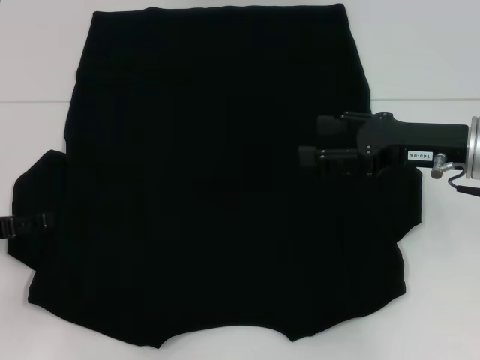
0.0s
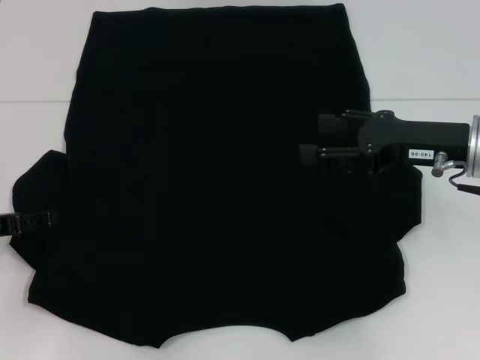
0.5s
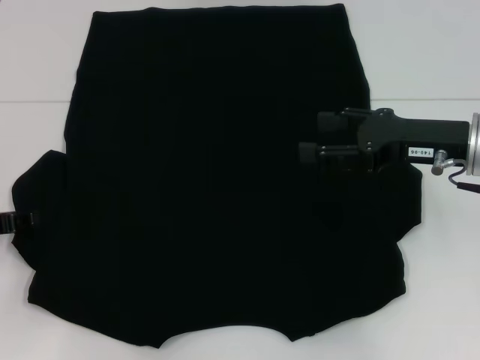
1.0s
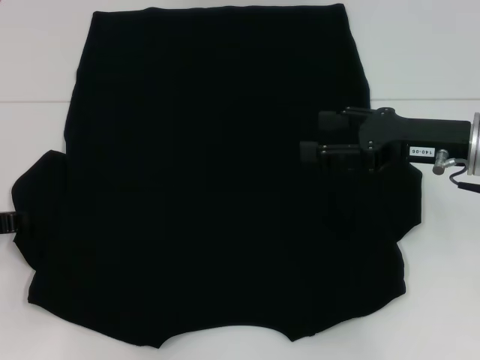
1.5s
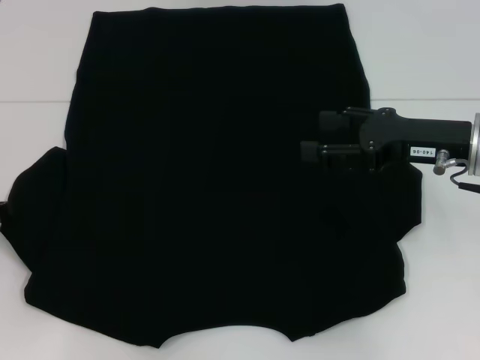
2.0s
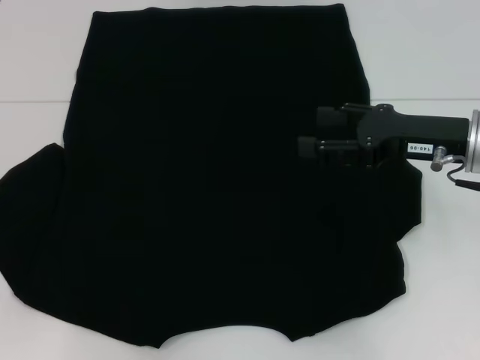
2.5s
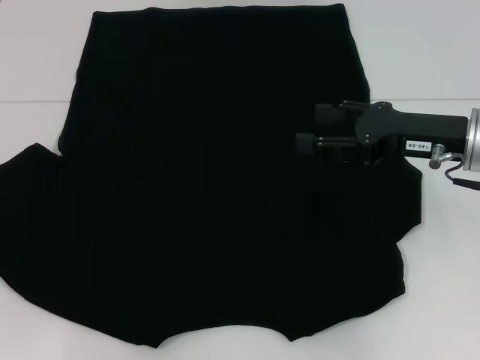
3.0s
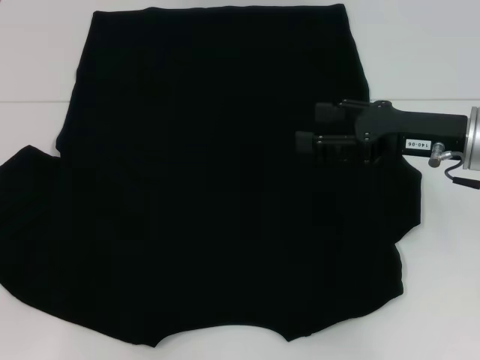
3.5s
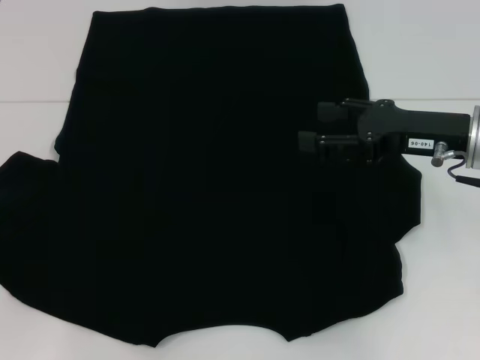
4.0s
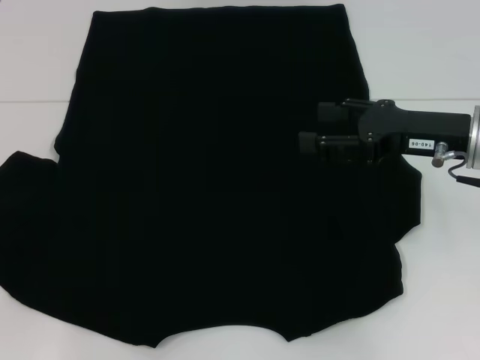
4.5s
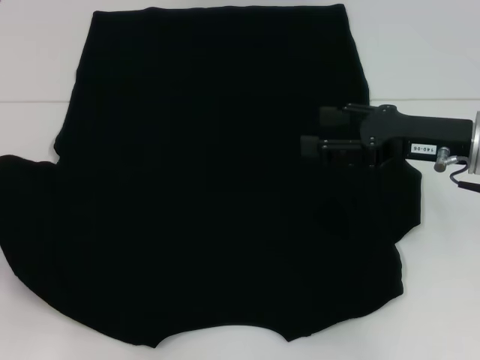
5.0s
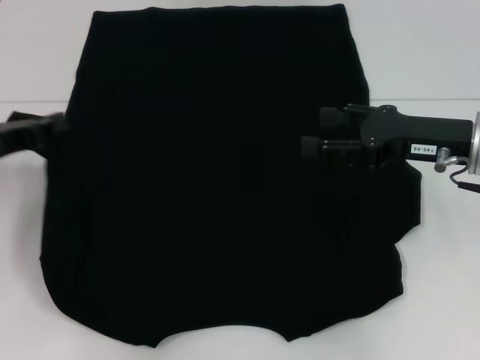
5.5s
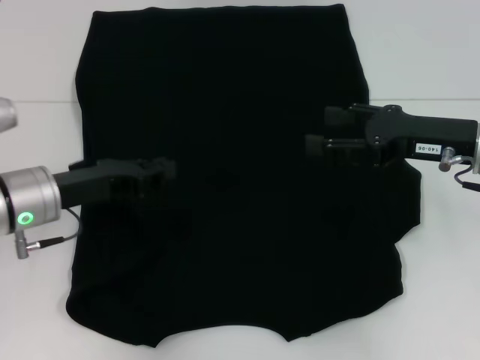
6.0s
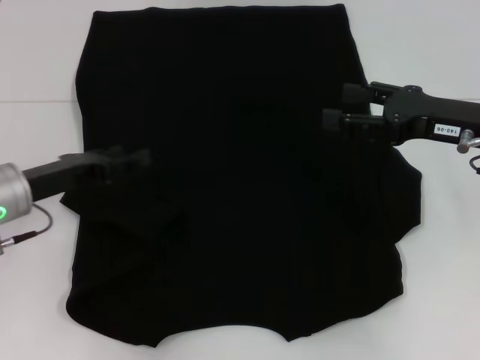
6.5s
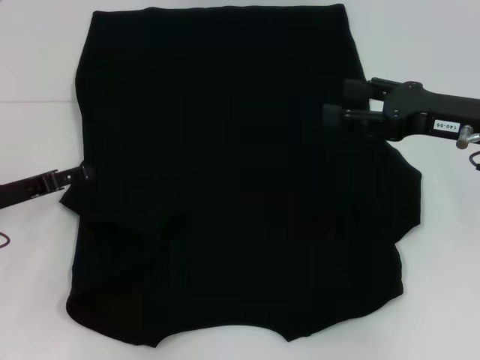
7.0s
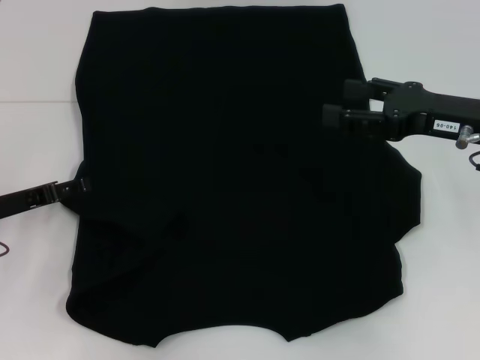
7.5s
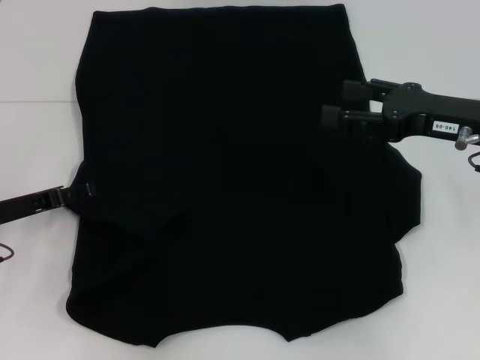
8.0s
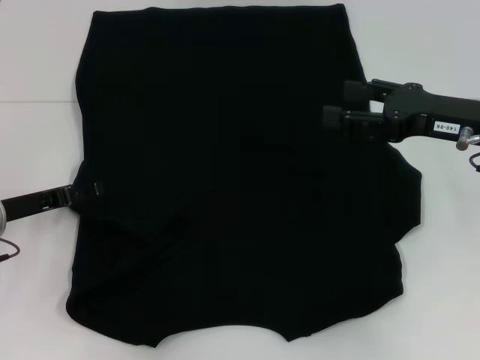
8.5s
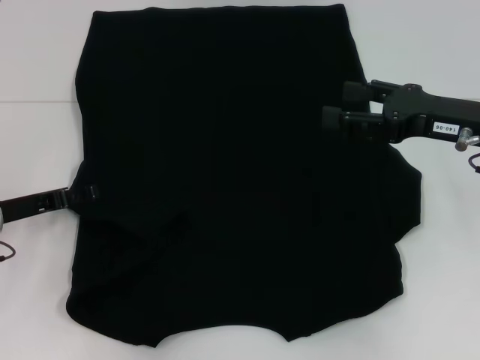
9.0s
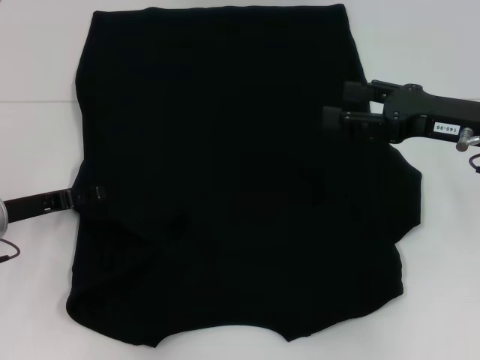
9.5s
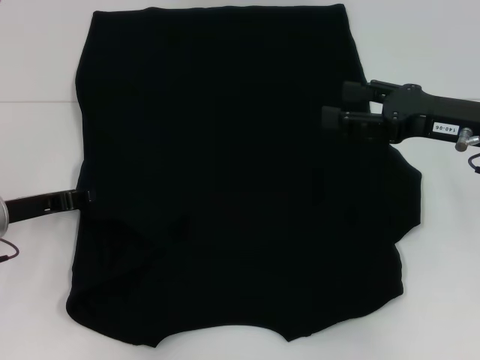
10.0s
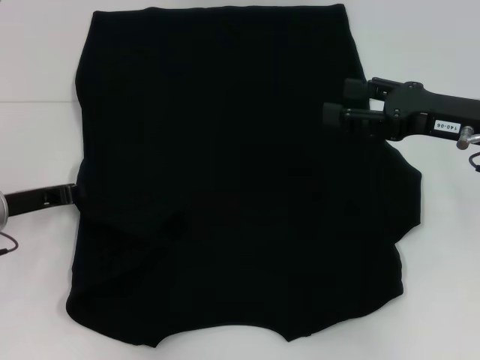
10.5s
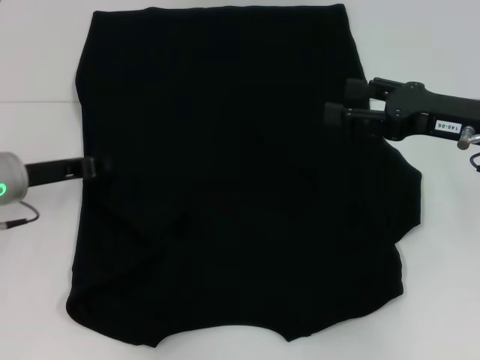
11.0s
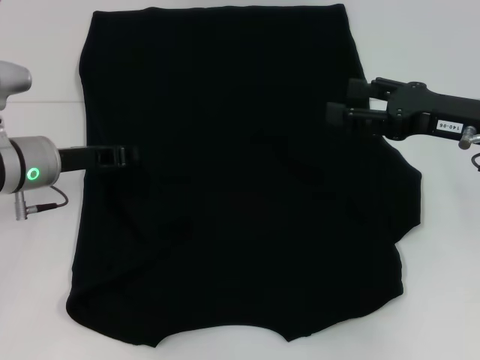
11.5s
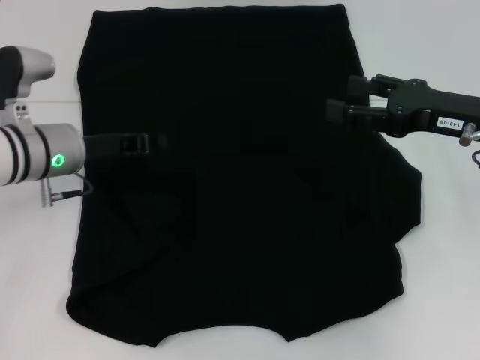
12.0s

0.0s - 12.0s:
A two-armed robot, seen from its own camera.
0.0s - 2.0s: The left gripper closes up.
2.0s - 4.0s: The grippers move only a little.
4.0s - 6.0s: The left gripper goes some 15 cm to the right.
6.0s - 8.0s: The left gripper shifts approximately 5 cm to the left, and opens up.
8.0s - 10.0s: The grippers move only a little.
10.0s - 12.0s: The left gripper moves to the right and forward, approximately 10 cm, and closes its fingers.

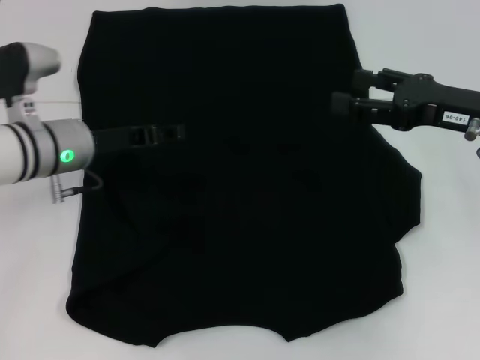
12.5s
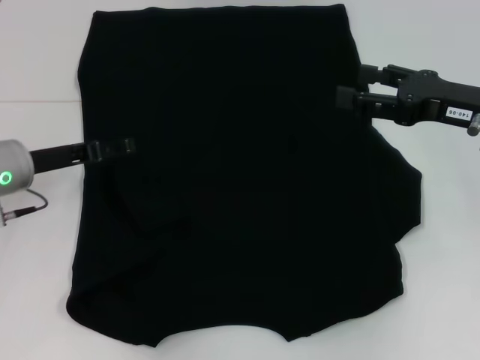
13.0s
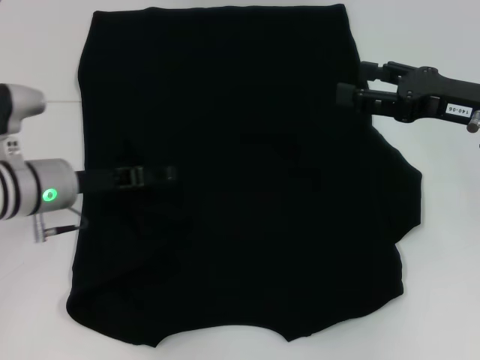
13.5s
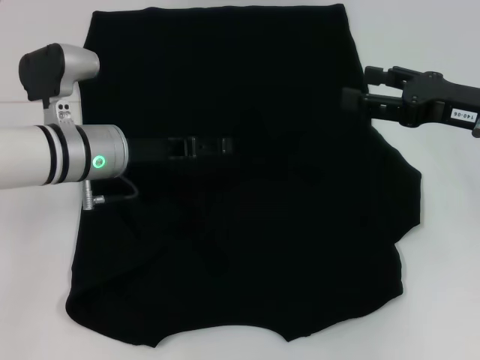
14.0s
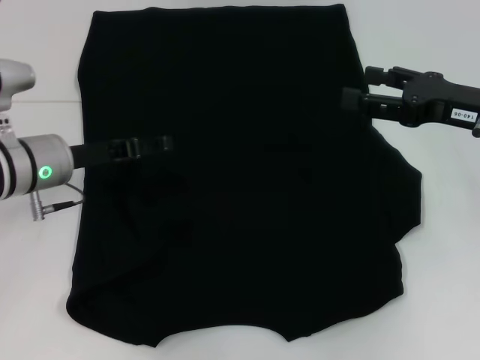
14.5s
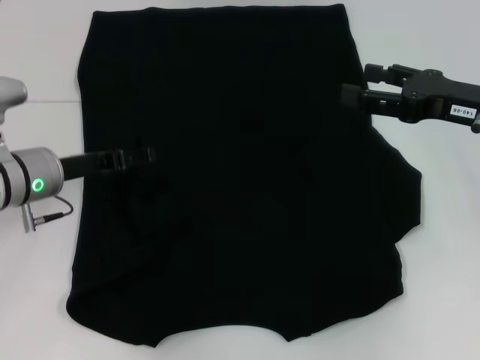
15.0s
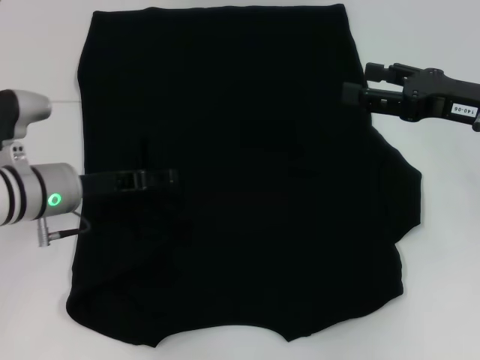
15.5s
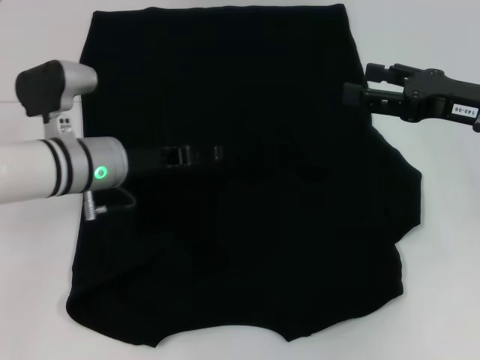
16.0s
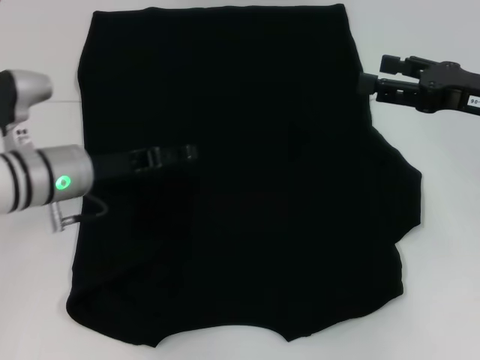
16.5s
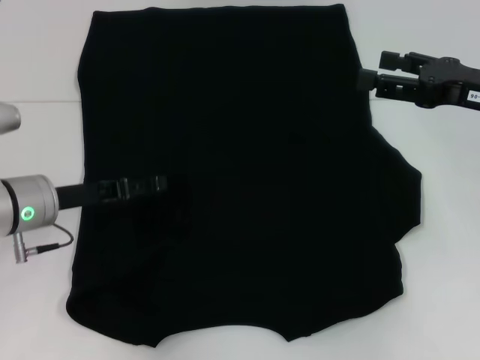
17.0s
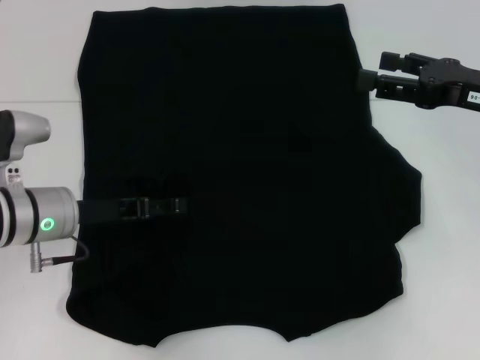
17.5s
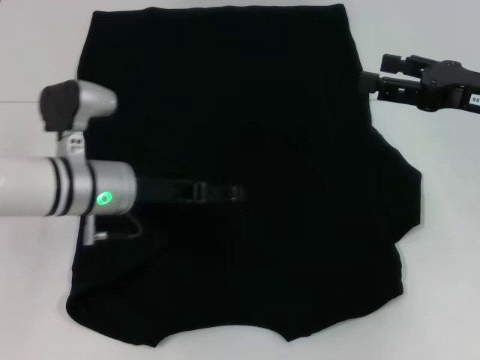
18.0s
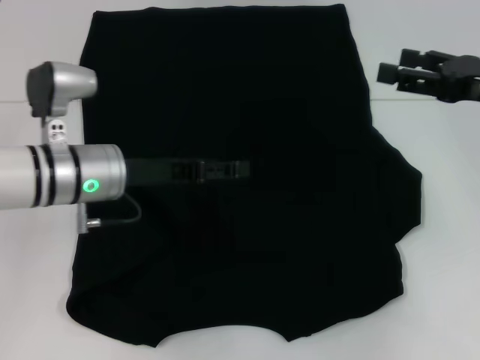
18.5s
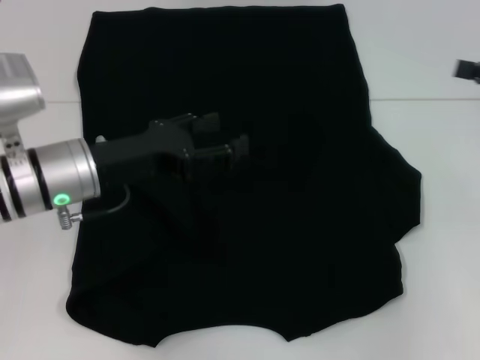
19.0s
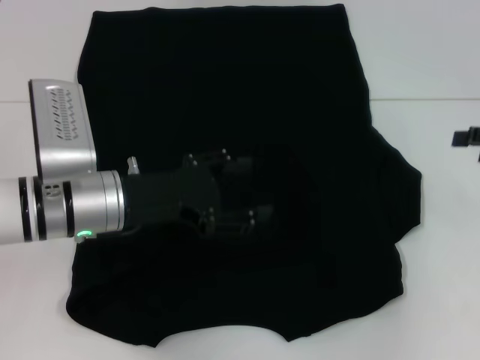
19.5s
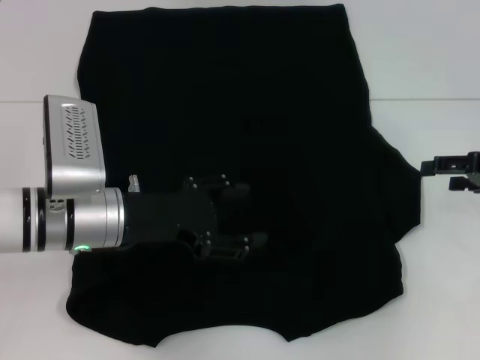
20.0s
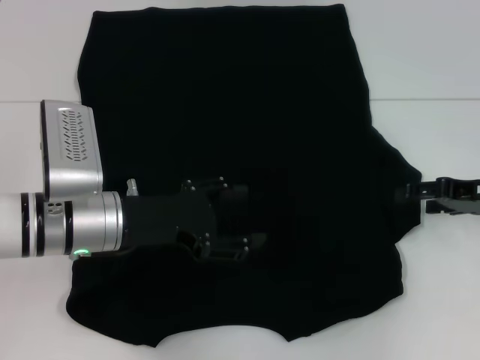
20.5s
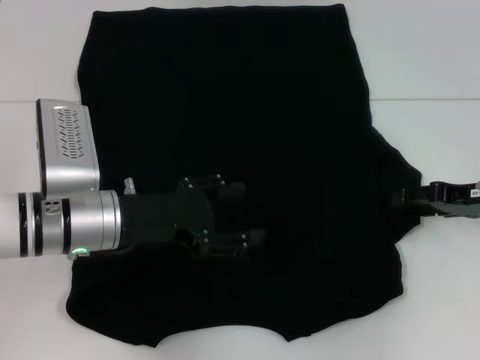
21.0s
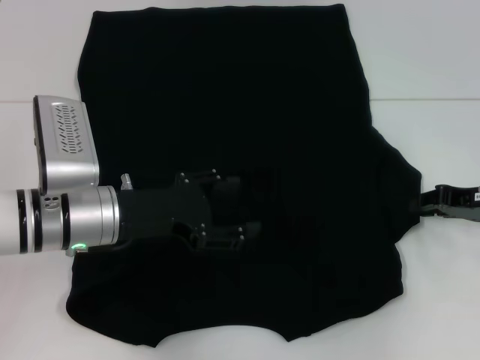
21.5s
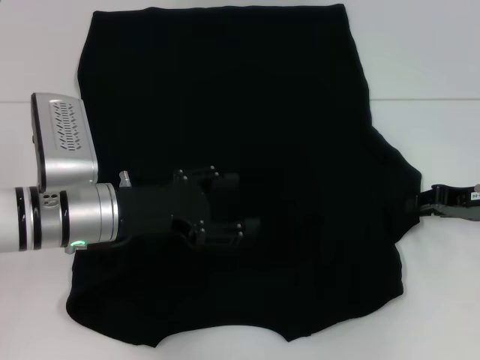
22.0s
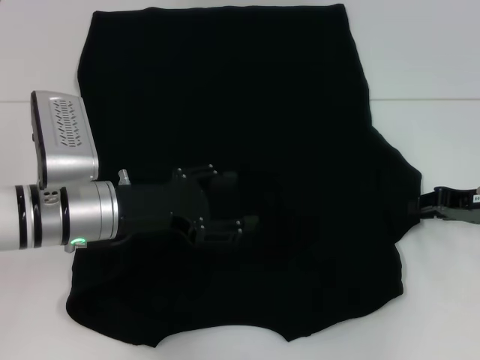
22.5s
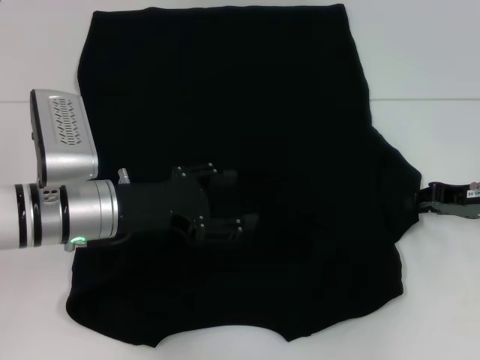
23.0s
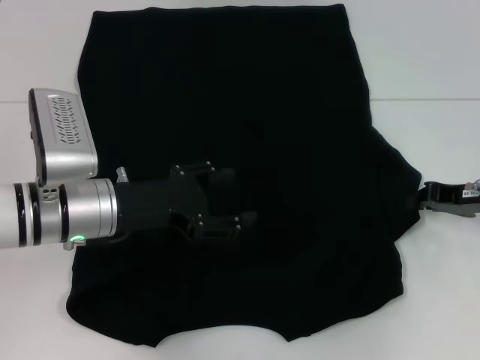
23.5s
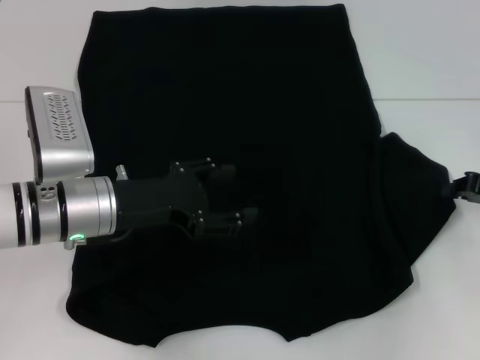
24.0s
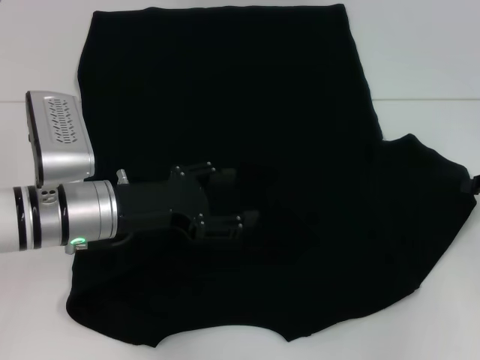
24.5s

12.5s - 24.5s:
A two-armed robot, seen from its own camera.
Step, 12.5s - 17.5s: Fold the bottom left sleeve with your left hand.
12.5s - 14.5s: The left gripper swings left and right, approximately 10 cm each way, with 2 reversals, and opens up.
14.5s - 16.5s: The grippers make only small movements.
16.5s - 18.5s: The grippers stay close to where they were, moving slightly.
18.5s - 20.5s: The right gripper goes roughly 10 cm downward.
20.5s - 22.5s: The right gripper closes.
22.5s - 24.5s: The right gripper ends up about 5 cm from where it was.

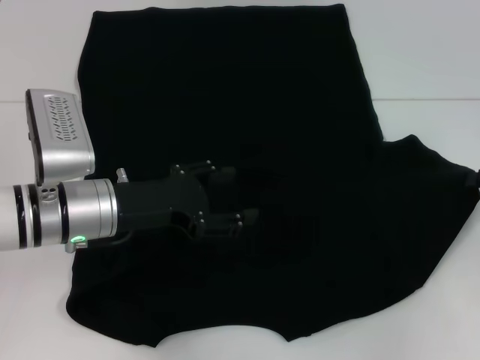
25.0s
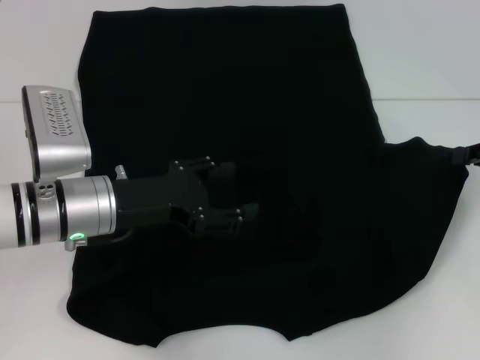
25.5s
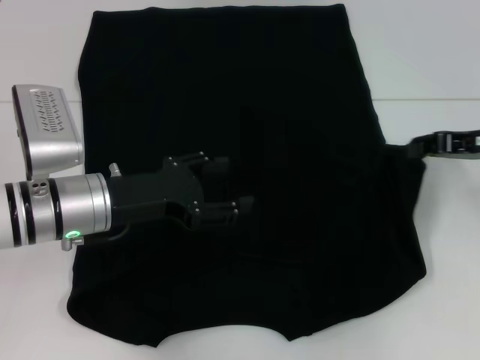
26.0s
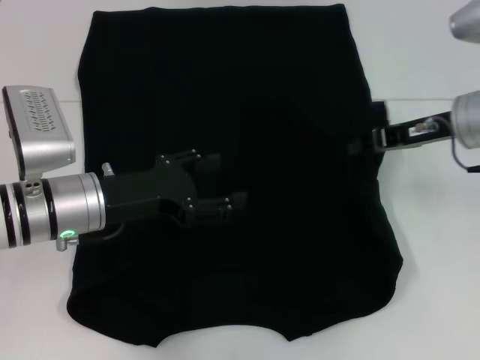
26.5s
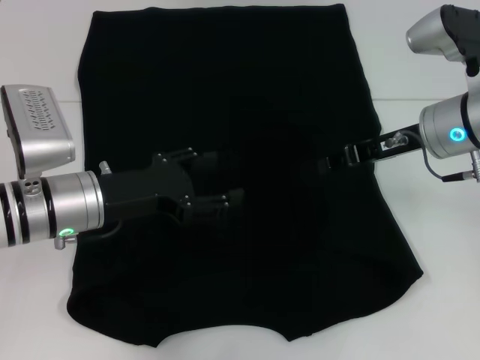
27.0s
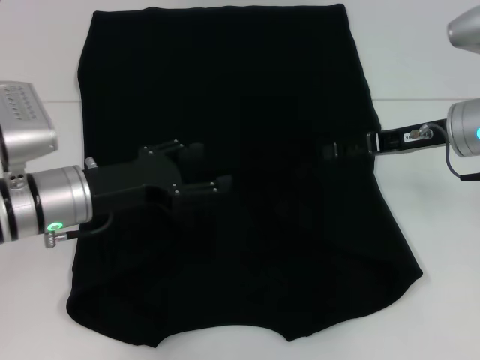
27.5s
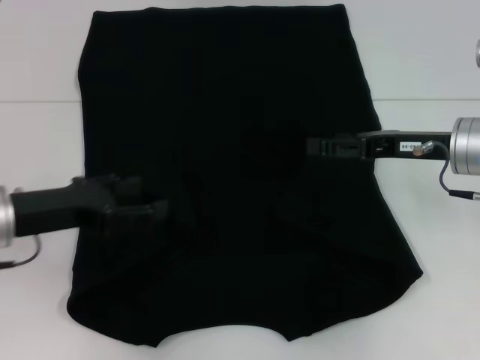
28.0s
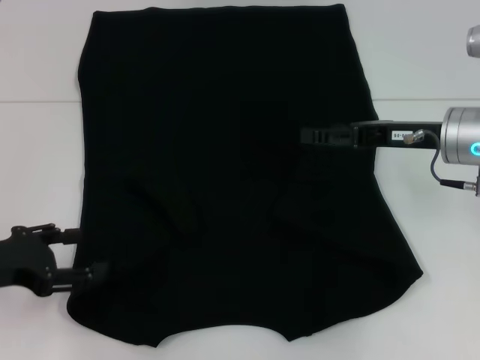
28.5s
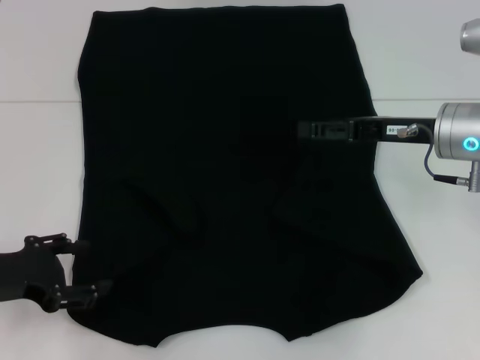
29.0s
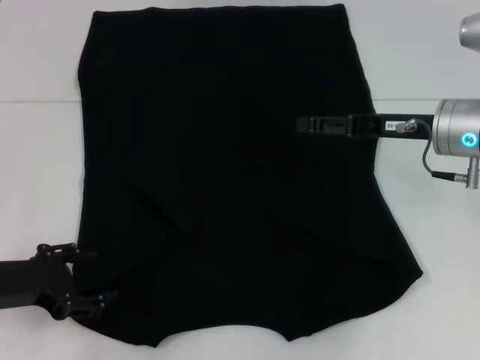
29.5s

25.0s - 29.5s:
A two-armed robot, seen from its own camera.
Step, 25.0s - 27.0s: Fold the bottom right sleeve with your right hand.
25.0s - 27.0s: The right gripper goes about 15 cm to the left.
27.0s - 29.5s: The left gripper heads to the left and backward, covering some 10 cm. The right gripper opens up.
